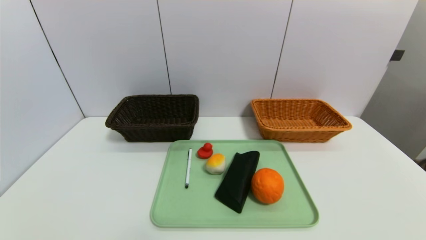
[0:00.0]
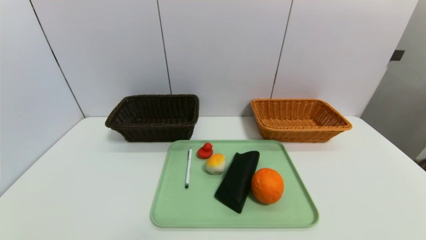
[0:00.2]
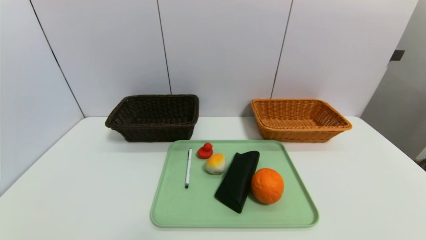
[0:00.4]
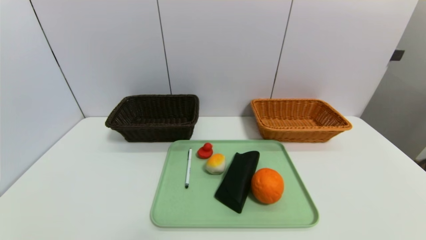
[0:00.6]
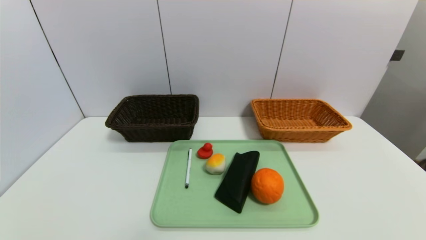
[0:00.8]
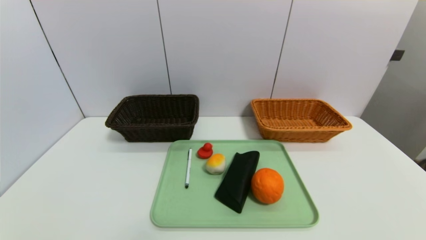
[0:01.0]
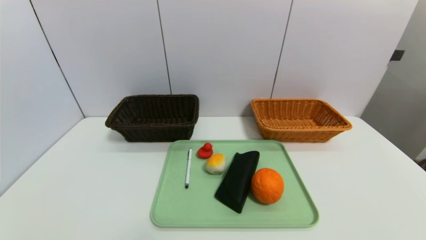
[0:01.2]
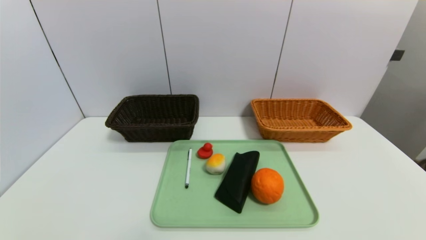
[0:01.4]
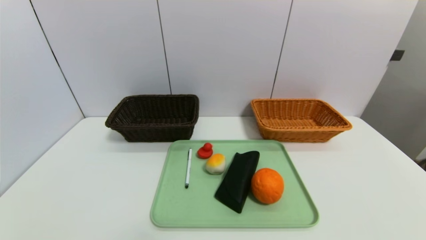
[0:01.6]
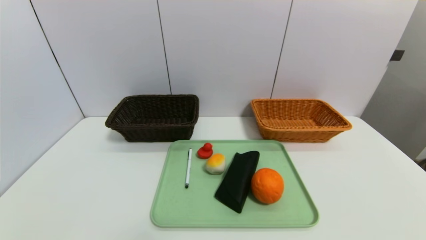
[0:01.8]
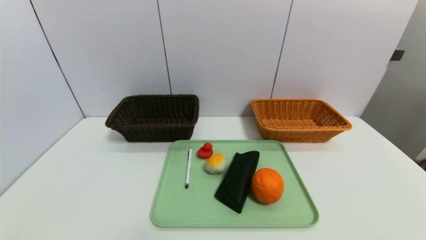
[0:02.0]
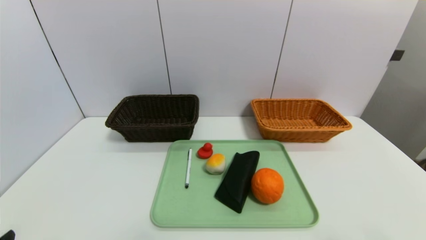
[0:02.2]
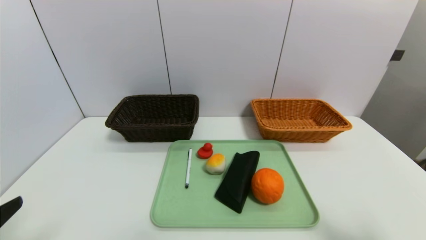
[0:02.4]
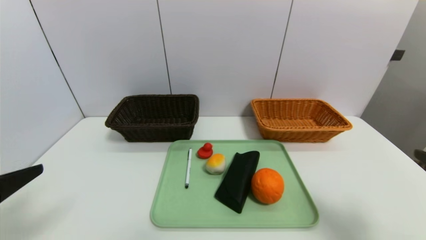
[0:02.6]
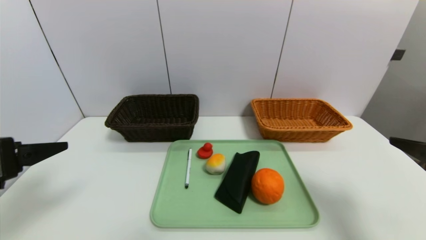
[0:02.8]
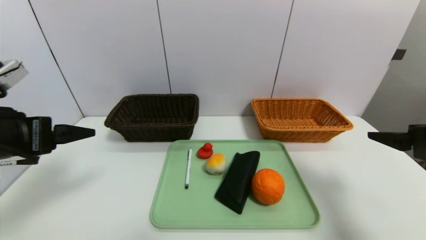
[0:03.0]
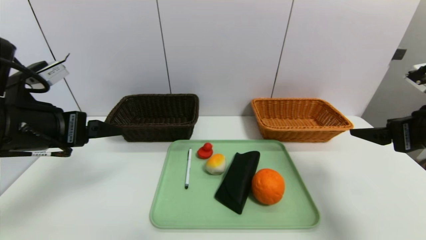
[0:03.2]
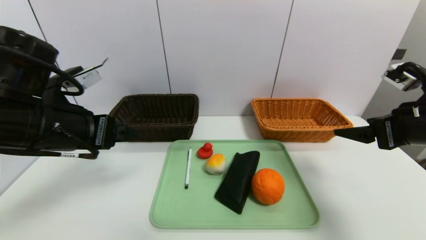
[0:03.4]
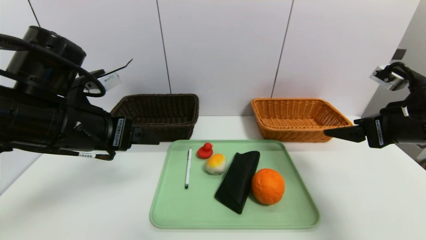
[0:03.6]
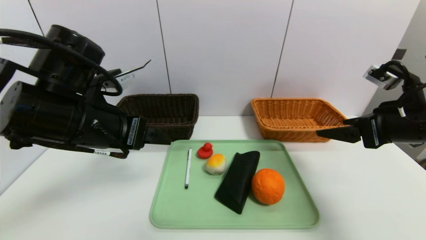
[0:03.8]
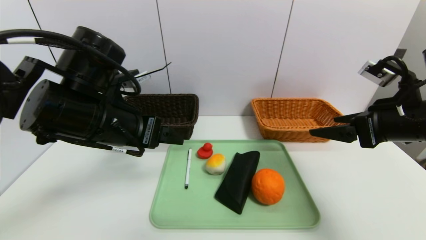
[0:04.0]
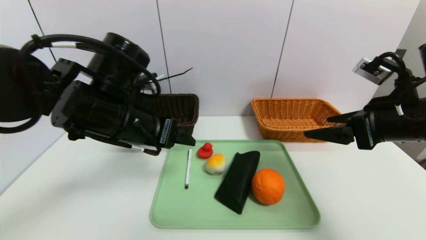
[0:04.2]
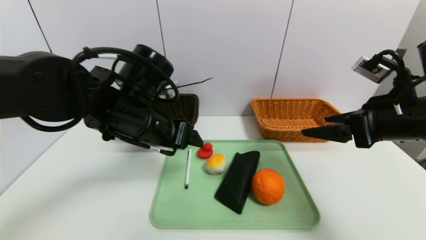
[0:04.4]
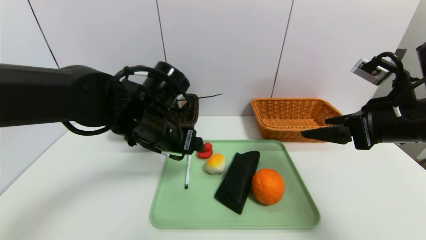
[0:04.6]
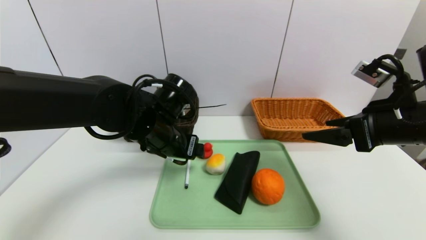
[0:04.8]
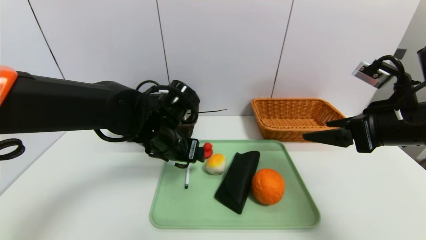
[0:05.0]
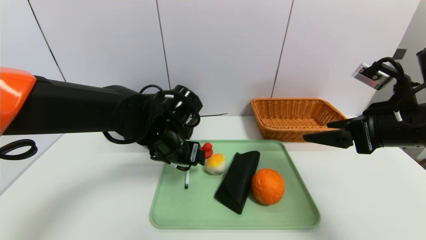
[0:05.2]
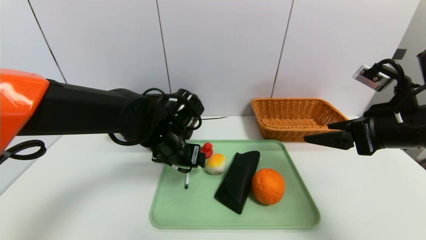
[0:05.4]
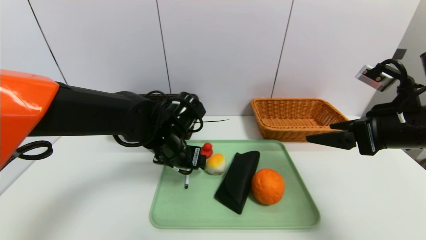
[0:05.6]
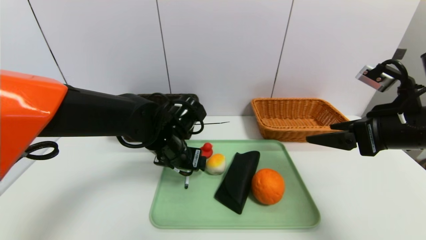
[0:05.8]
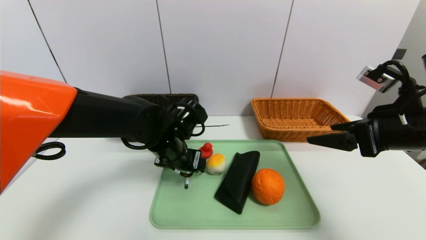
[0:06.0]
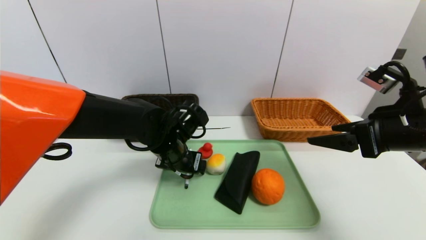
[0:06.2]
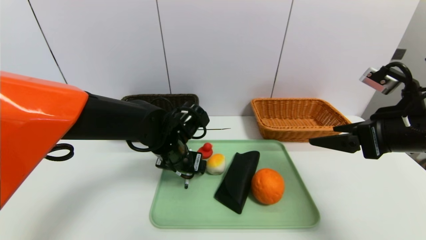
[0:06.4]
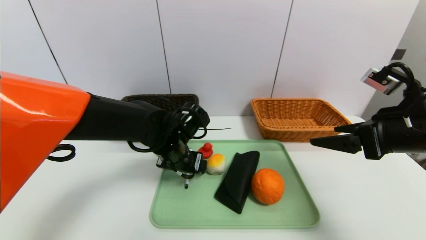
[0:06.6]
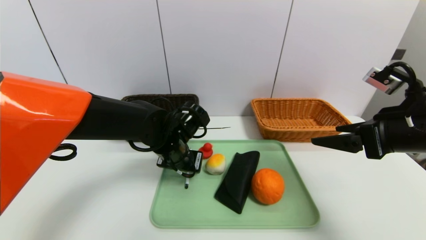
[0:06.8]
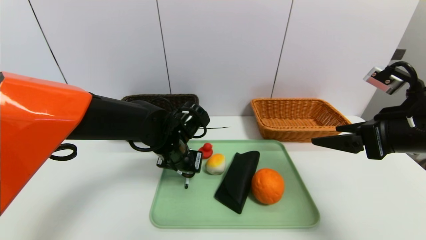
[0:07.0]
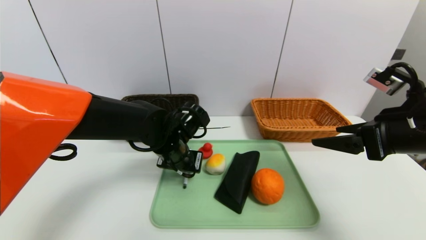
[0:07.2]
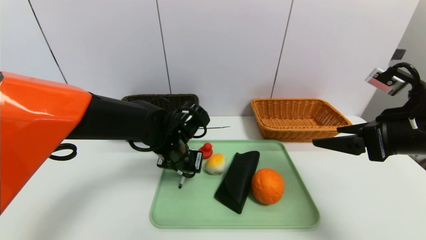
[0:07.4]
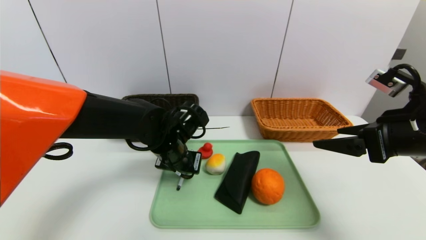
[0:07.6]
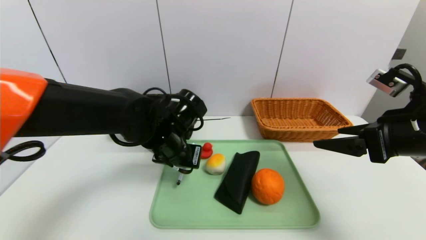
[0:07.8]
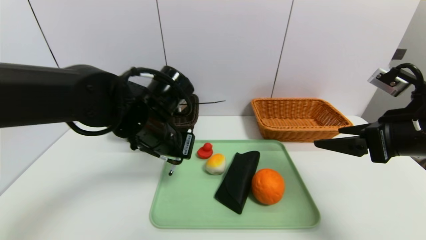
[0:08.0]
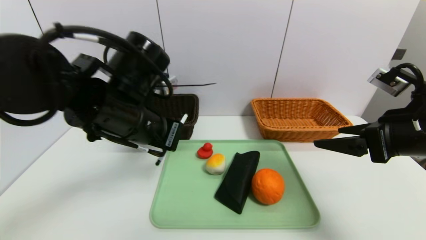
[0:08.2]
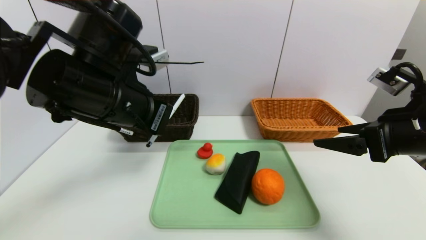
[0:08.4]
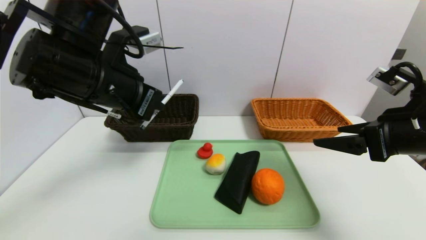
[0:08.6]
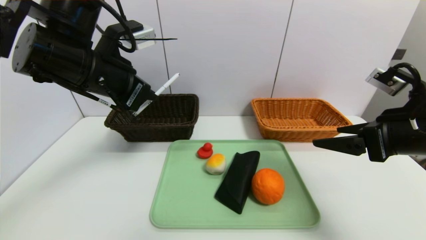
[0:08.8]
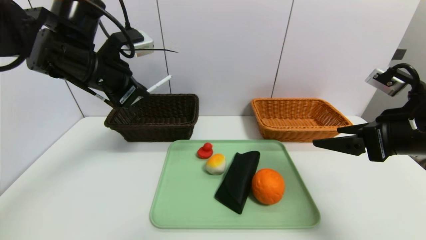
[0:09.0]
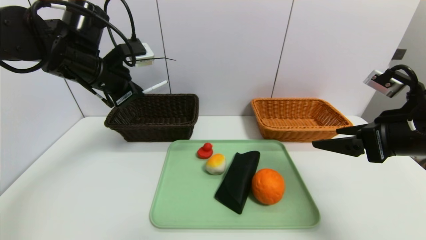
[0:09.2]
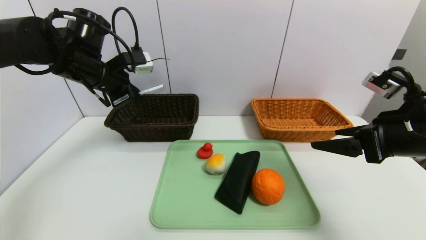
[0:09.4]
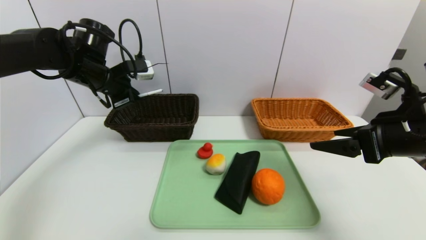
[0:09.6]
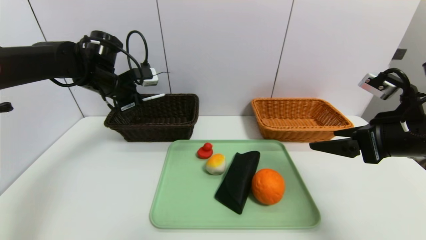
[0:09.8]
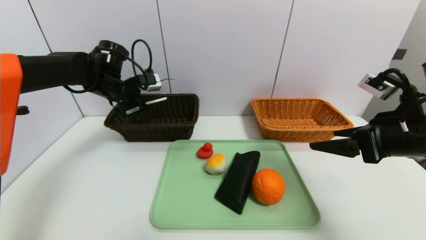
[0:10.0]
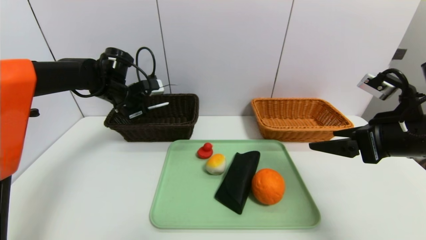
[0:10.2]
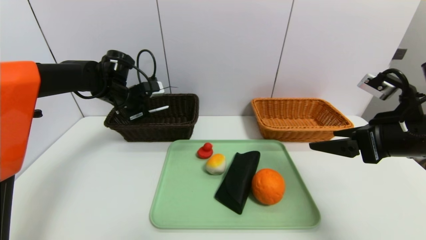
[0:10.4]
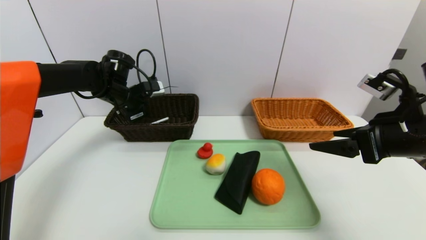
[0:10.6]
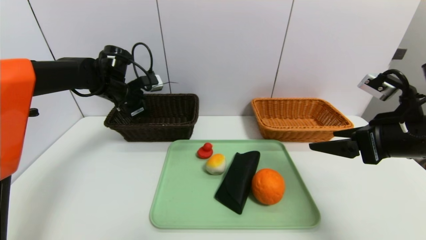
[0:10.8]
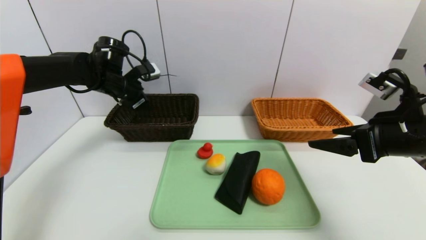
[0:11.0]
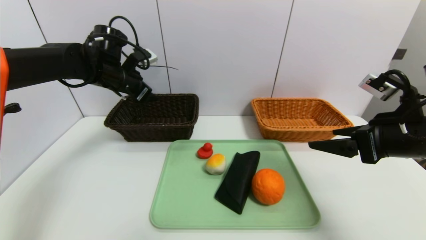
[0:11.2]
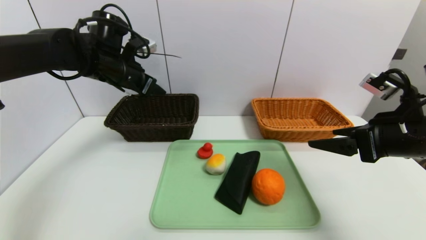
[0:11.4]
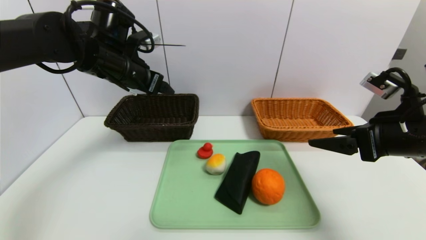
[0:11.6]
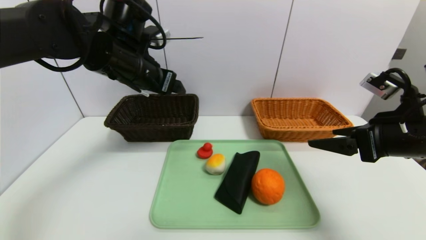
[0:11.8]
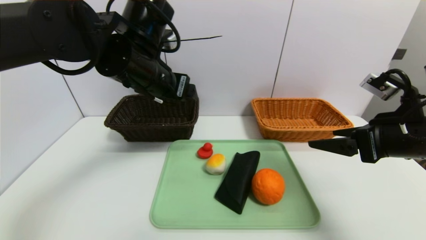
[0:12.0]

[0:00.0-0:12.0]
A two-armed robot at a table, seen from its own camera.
Task of the whole recording: place the food in the right basket with the right gripper, and place the non food items in the left basket with the left gripper.
Step, 0:00.0 to 0:10.8: Grasp the ballpoint pen and put it in the left basket.
0:01.6 to 0:03.0: The grippers both shift forward and upward by some 25 cm.
0:03.0 to 0:04.4: The right gripper heads to the left, covering some 5 cm. Meanwhile the left gripper goes roughly 20 cm to the right and forward.
0:04.4 to 0:06.0: The left gripper shifts roughly 10 cm downward.
0:06.0 to 0:07.6: The left gripper closes its fingers.
0:07.6 to 0:09.0: The left gripper shifts about 20 cm upward and to the left.
0:09.0 to 0:10.4: The left gripper heads forward and downward, covering roughly 15 cm.
0:10.4 to 0:12.0: The left gripper goes some 20 cm backward, to the right and upward, and opens.

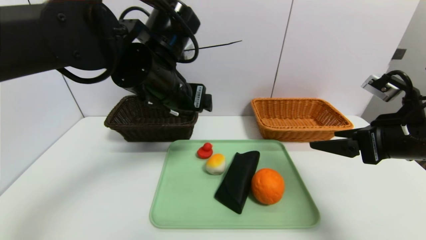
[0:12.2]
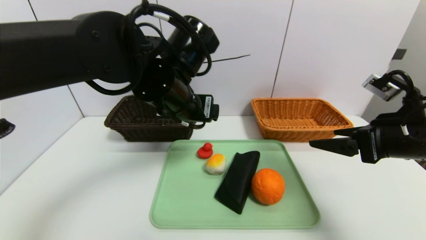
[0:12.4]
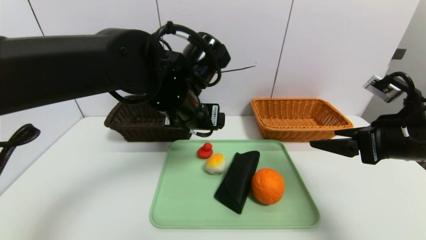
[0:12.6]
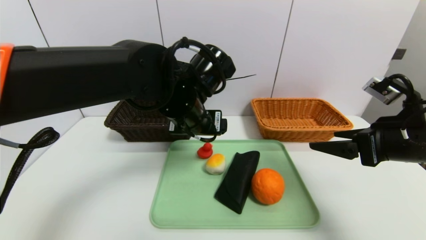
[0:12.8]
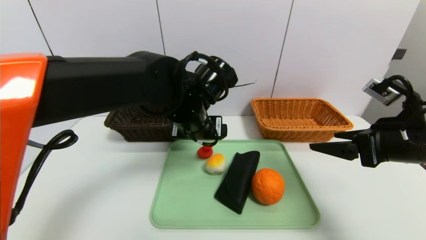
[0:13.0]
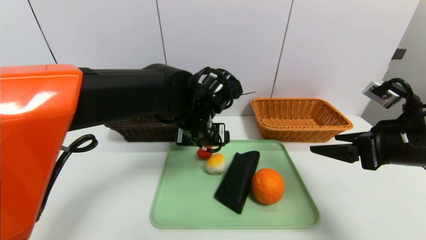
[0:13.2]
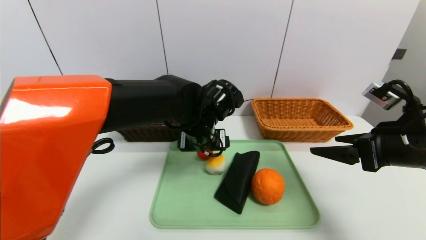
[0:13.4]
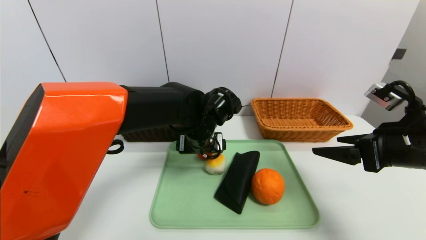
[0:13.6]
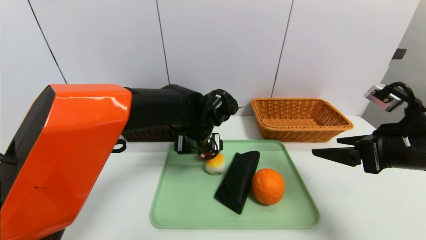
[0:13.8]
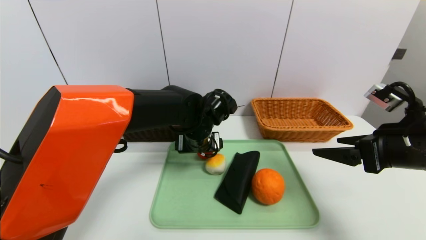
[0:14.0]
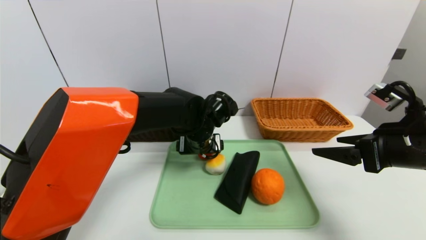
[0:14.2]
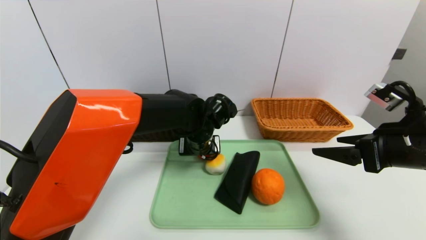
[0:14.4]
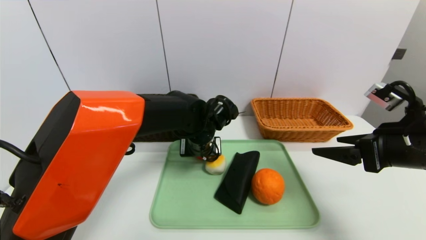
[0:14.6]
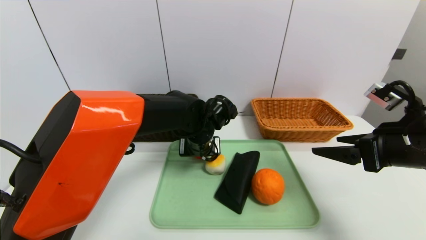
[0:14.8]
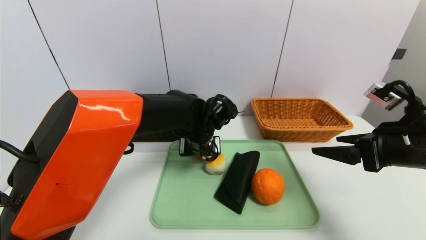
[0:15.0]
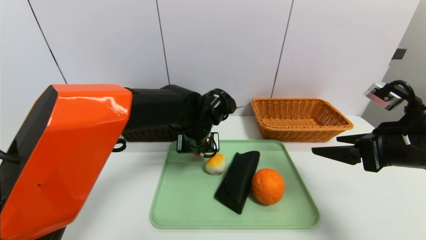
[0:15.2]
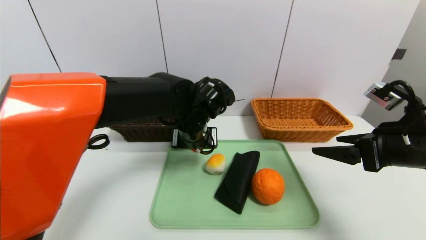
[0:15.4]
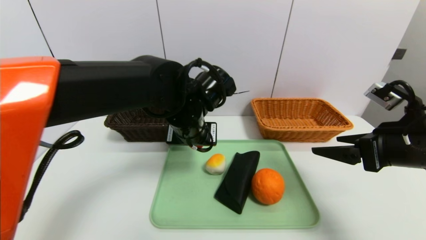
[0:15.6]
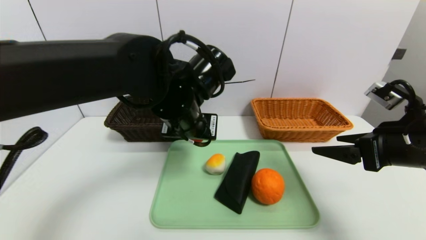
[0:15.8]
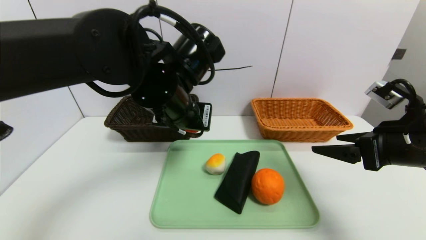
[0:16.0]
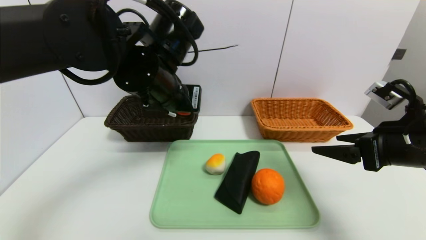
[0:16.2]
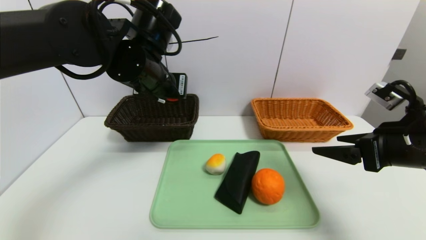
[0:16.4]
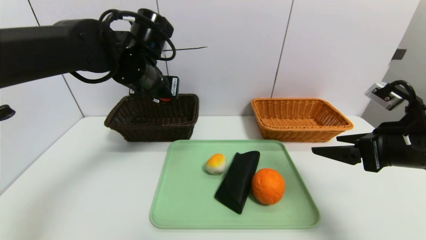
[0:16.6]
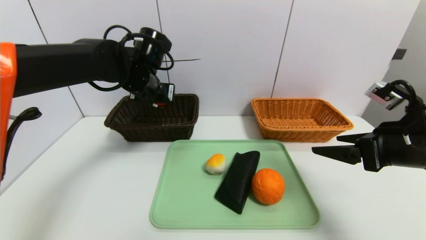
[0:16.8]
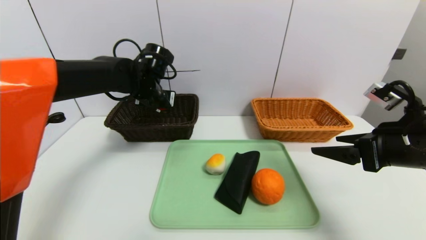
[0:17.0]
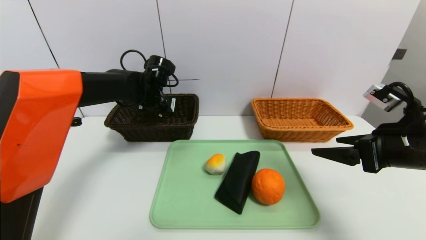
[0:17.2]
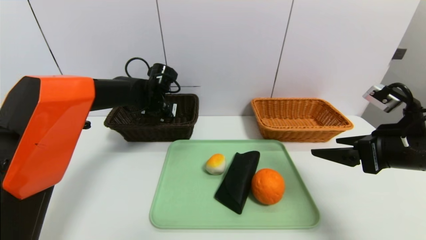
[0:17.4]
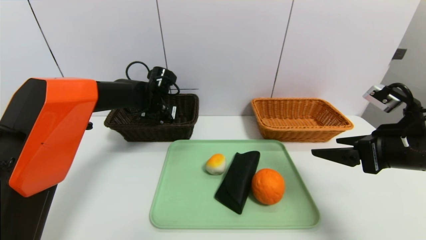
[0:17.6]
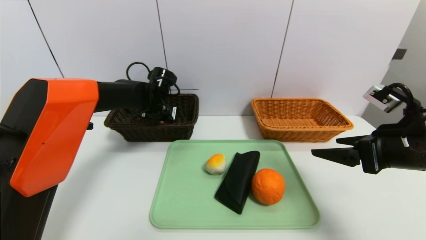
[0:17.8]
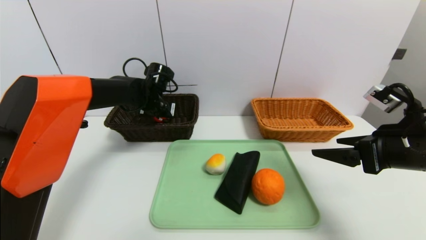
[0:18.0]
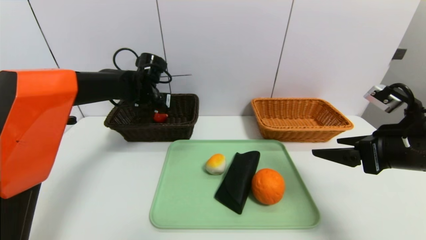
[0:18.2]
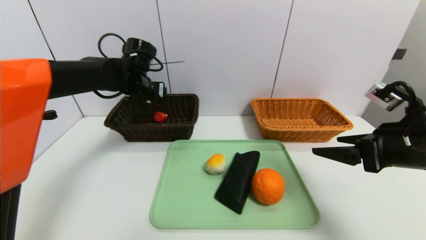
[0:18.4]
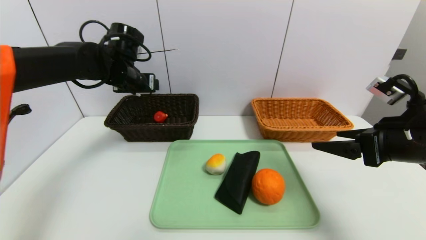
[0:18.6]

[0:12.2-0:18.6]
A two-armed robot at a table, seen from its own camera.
Task of the whole recording: place the food in the right basket with the right gripper, and place the non food items in the left basket with the left gripper.
Step, 0:12.2 to 0:18.2: Grasp the red duck and put it in the left basket.
0:12.2 to 0:13.8: The left gripper shifts about 15 cm downward, to the right and forward.
0:13.8 to 0:15.4: The left gripper closes up.
0:15.4 to 0:17.0: The left gripper is displaced to the left and forward by roughly 15 cm.
0:17.0 to 0:18.6: The left gripper goes approximately 5 cm to the left, and opens.
